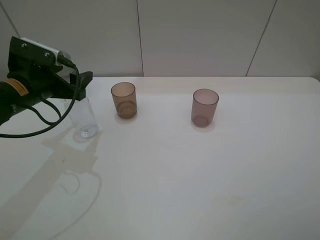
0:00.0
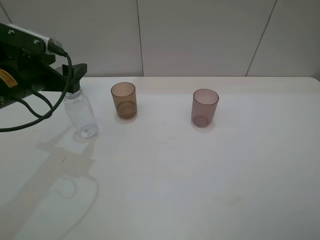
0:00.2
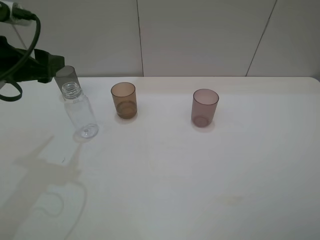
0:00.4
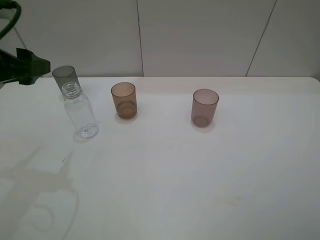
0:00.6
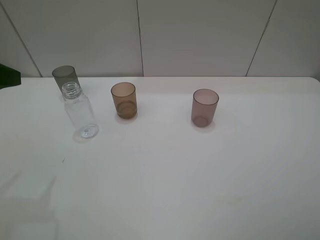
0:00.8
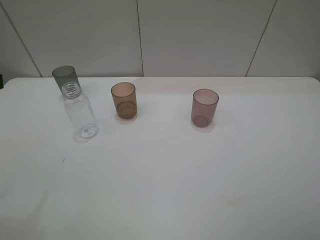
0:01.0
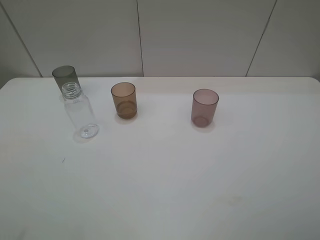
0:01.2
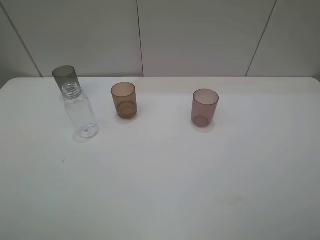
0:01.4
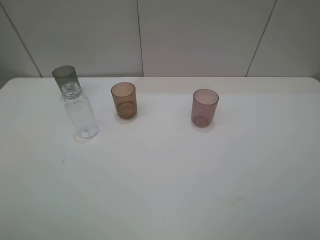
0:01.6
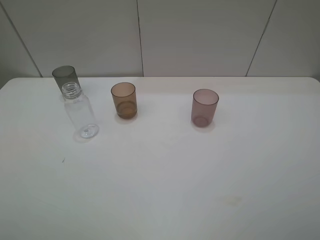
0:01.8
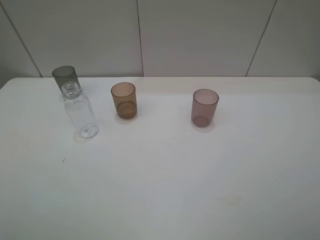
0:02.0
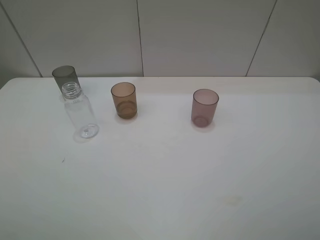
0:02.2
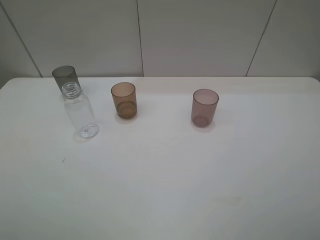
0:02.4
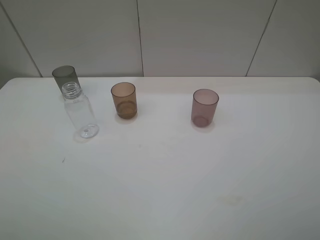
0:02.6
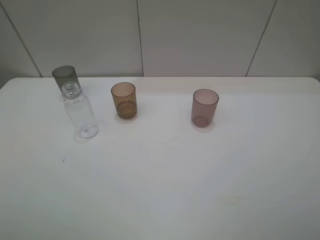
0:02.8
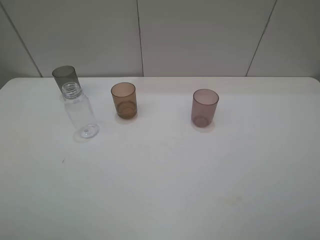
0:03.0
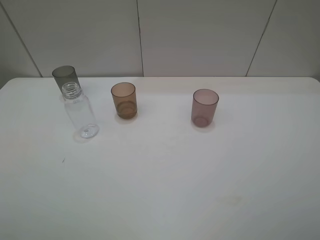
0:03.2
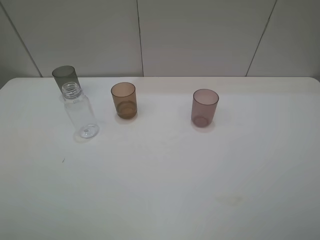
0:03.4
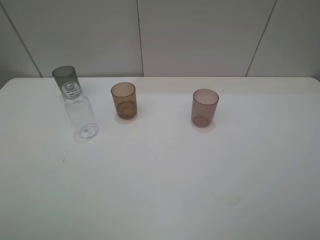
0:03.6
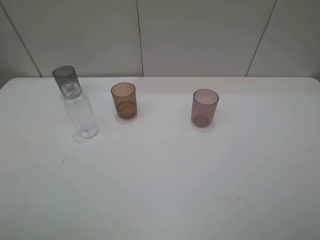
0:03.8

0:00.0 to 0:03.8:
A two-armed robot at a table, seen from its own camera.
Task of the whole recording: pick up the bottle filled with water and pour water into the middle cup of the three cups.
0:00.0 to 0:01.2: The left gripper shifts some 25 cm backward and upward.

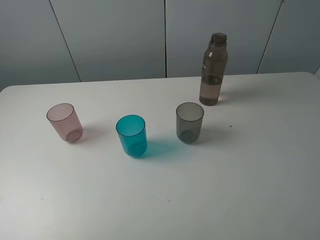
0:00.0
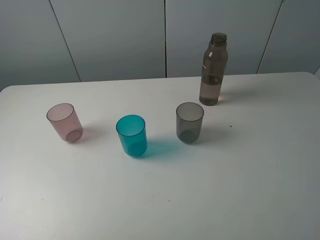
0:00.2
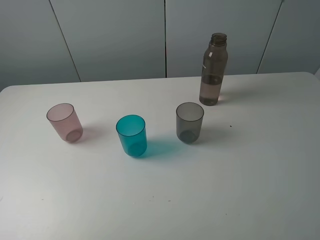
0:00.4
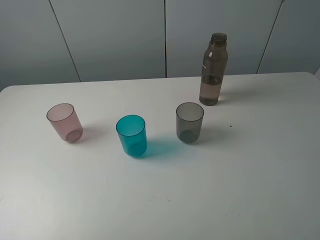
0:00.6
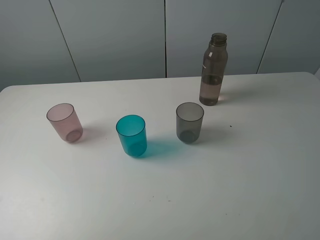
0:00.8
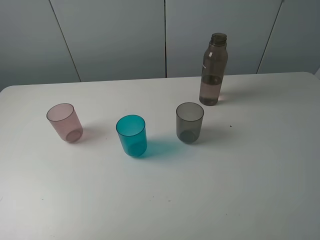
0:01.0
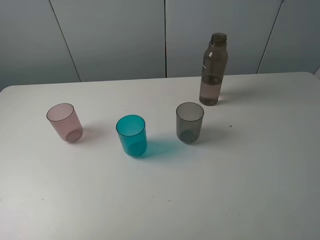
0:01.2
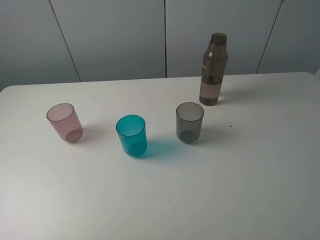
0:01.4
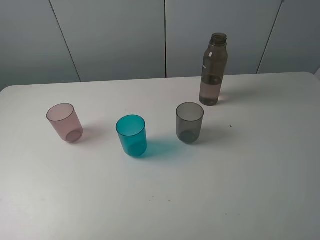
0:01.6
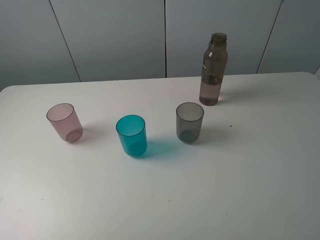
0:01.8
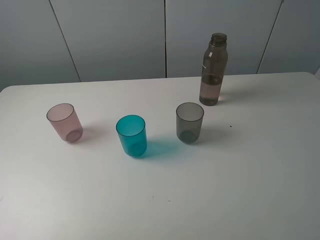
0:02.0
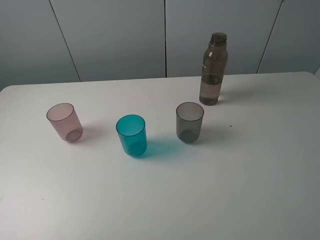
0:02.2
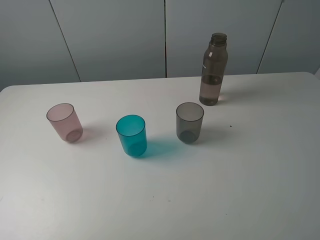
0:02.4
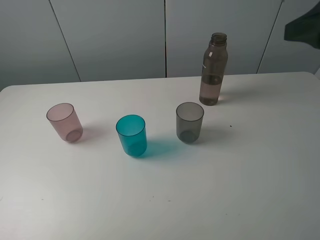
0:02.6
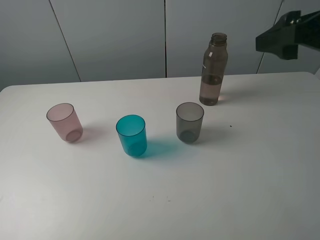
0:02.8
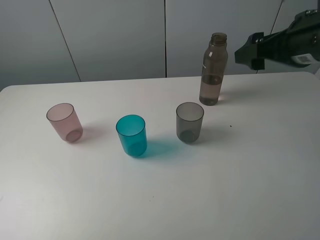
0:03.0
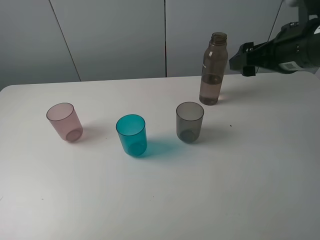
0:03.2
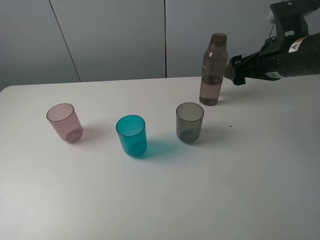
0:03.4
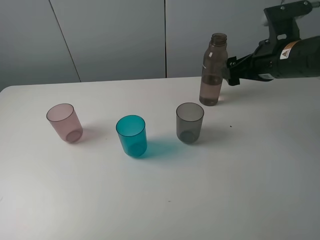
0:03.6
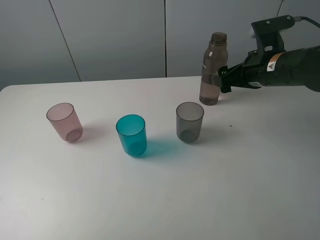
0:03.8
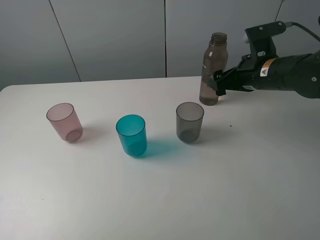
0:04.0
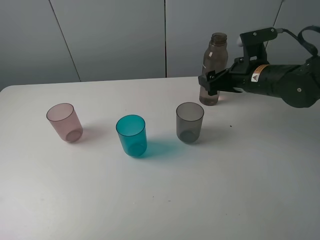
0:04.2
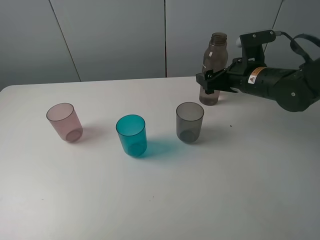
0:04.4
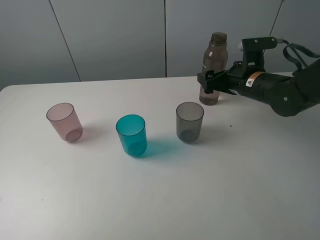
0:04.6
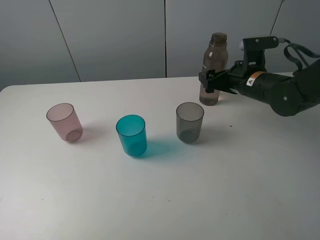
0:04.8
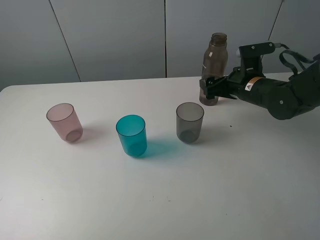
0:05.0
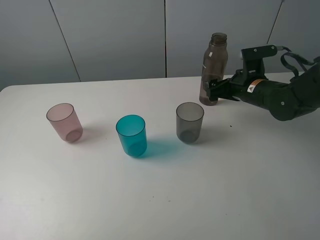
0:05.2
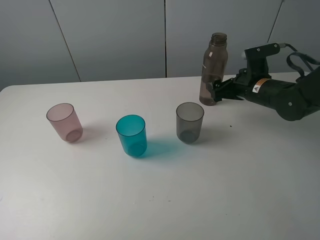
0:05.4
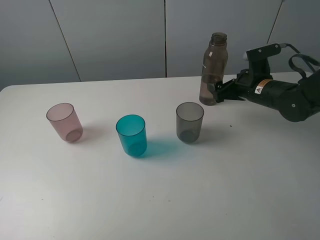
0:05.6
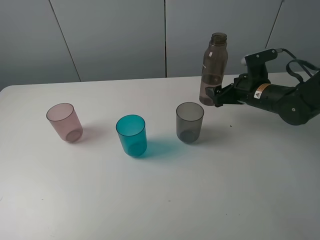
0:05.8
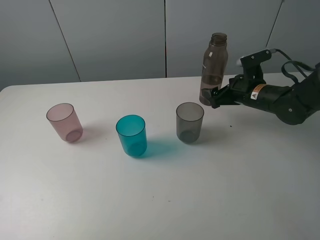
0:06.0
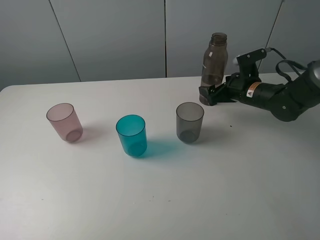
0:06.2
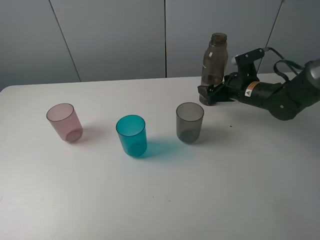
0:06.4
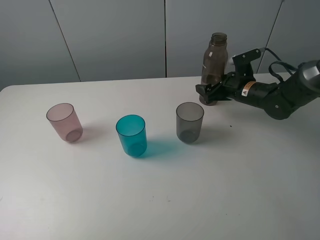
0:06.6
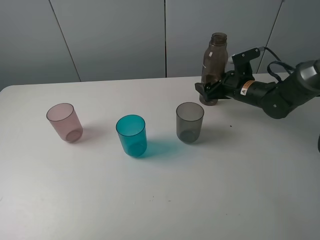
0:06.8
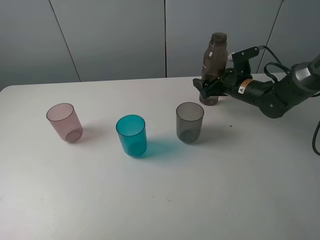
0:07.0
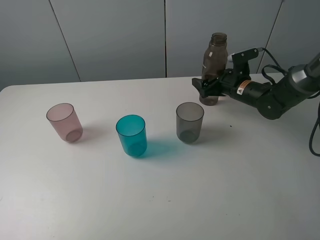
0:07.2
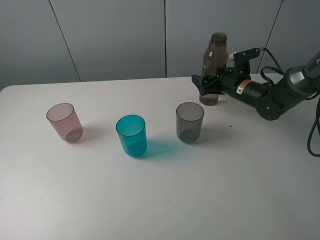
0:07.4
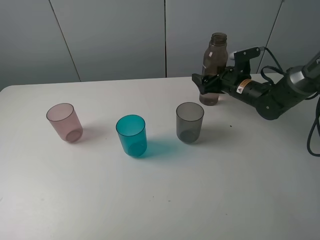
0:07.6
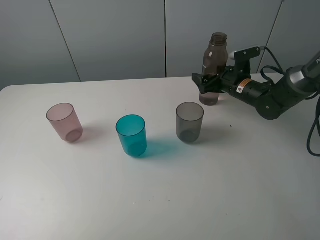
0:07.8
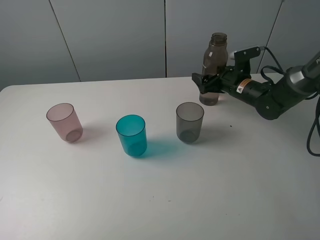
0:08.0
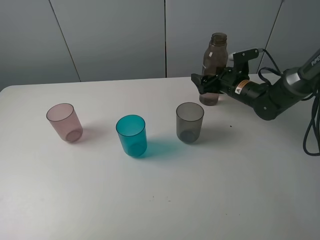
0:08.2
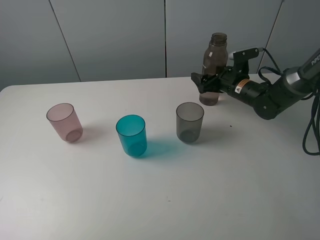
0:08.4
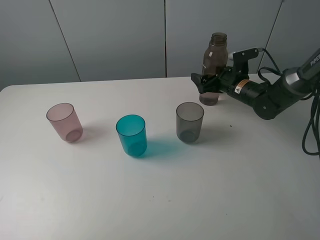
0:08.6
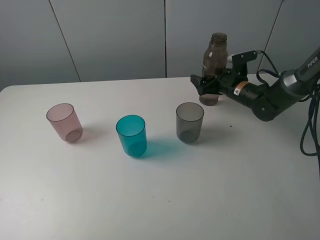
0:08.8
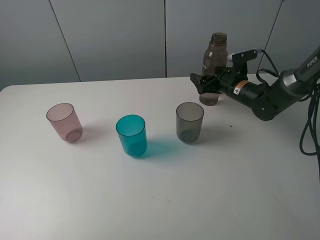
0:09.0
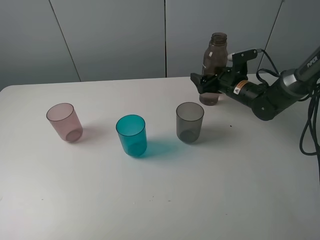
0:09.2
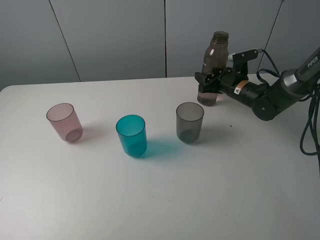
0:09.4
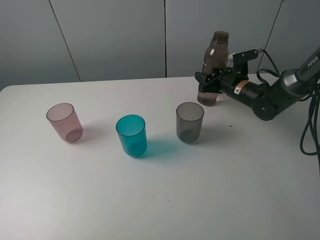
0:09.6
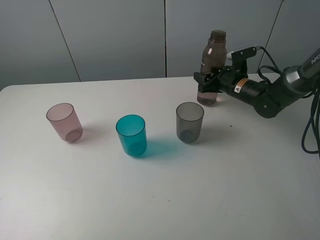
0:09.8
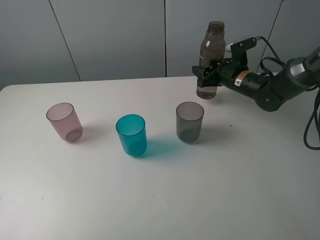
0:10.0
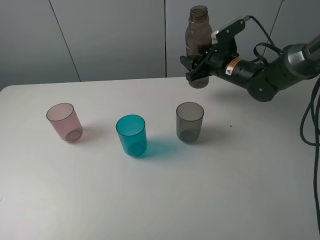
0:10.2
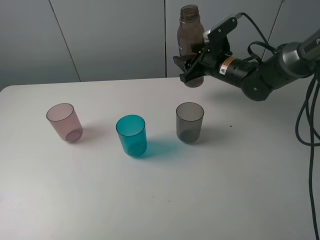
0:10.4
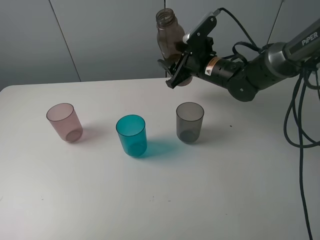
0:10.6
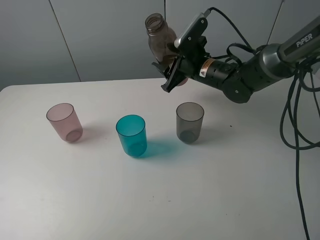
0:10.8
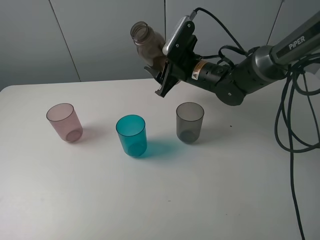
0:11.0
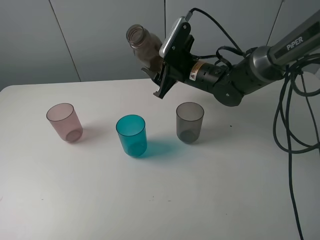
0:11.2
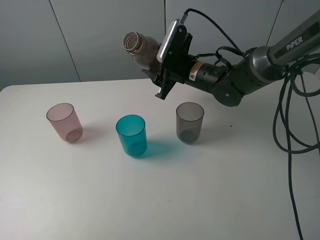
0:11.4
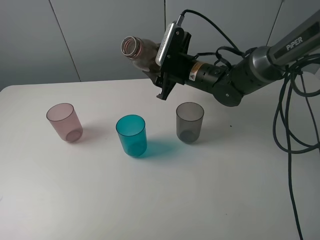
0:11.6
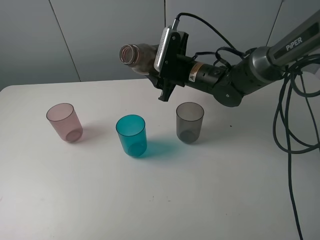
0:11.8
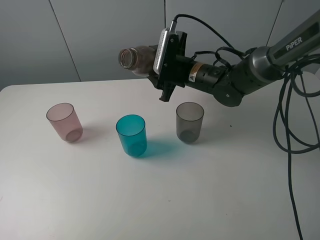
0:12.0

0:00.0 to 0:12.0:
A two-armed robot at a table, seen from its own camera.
Task of the whole recording: pick up the bottle filled with water and pour water into the middle cup of the three cups.
Step, 0:00.0 to 0:09.6: Grasp the brown bottle with the right gripper.
0:00.0 to 0:01.6: Both grippers stay about where they are.
0:01.6 to 0:03.0: The right gripper shifts about 25 cm forward.
0:03.0 to 0:04.4: The right gripper heads downward and forward, covering about 15 cm.
0:04.4 to 0:06.0: The right gripper travels downward by about 5 cm.
0:06.0 to 0:07.6: The right gripper heads forward, covering about 5 cm.
0:07.6 to 0:09.0: There are only small adjustments of the grippers.
0:09.0 to 0:10.4: The right gripper is displaced upward and to the left by roughly 10 cm, and closes up.
0:10.4 to 0:12.0: The right gripper heads to the left, covering some 5 cm.

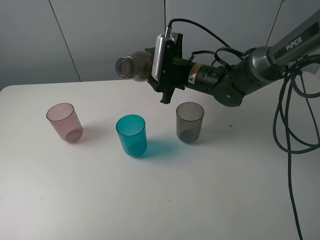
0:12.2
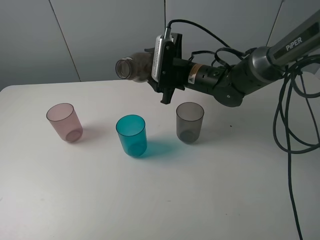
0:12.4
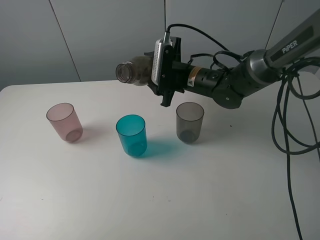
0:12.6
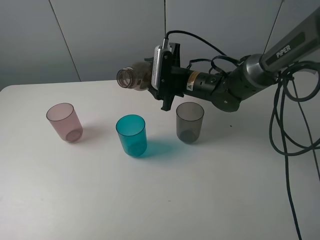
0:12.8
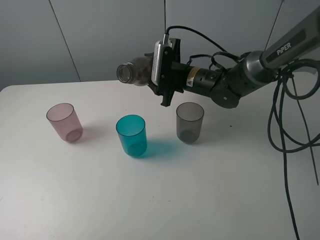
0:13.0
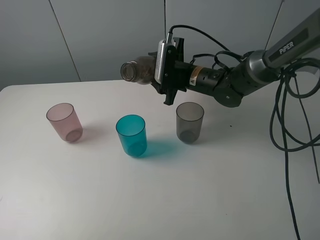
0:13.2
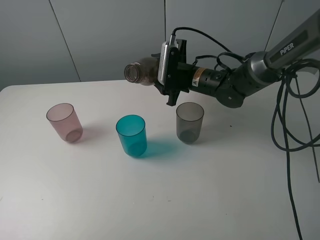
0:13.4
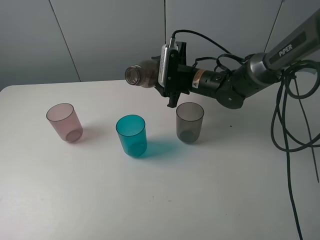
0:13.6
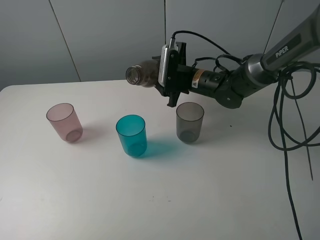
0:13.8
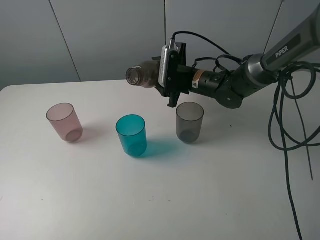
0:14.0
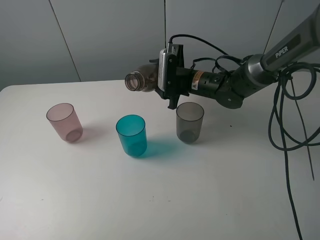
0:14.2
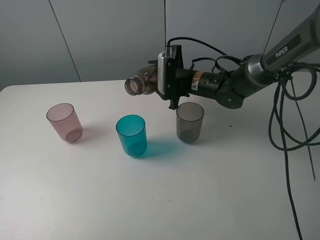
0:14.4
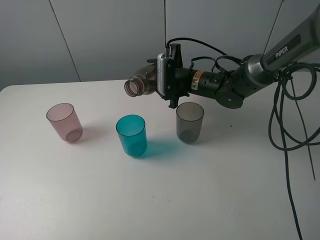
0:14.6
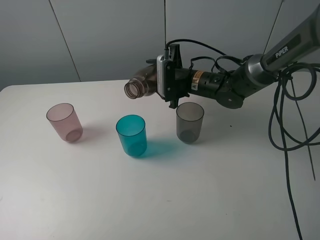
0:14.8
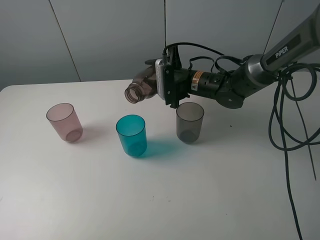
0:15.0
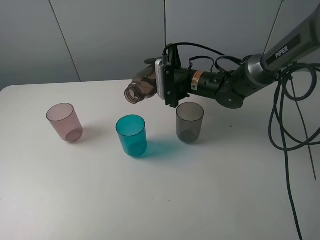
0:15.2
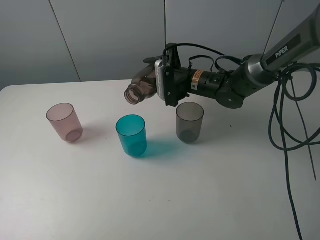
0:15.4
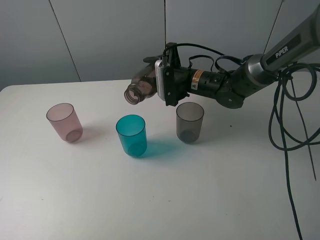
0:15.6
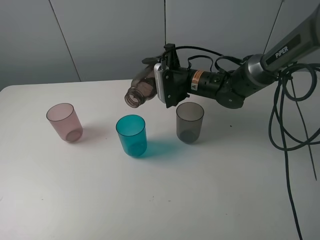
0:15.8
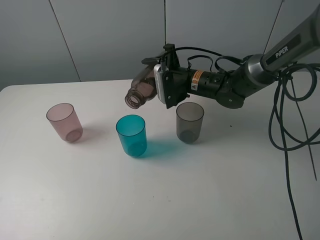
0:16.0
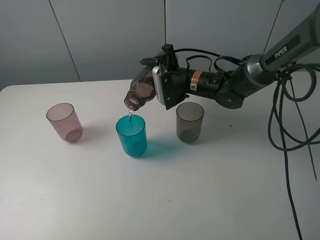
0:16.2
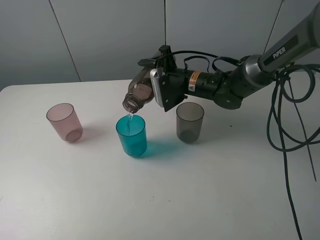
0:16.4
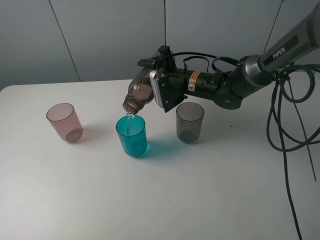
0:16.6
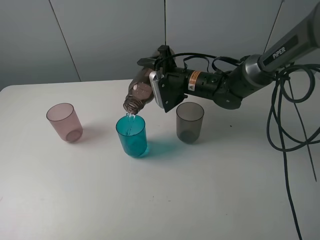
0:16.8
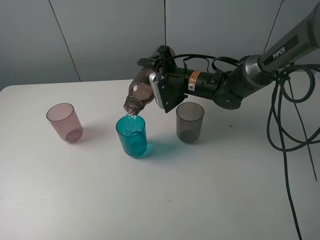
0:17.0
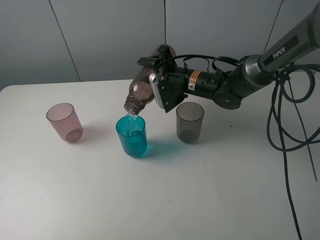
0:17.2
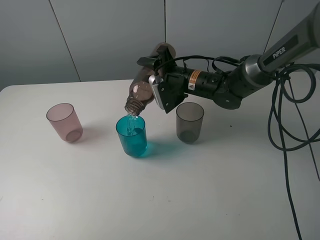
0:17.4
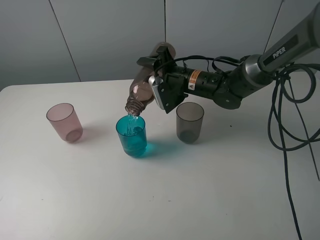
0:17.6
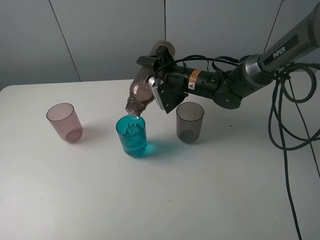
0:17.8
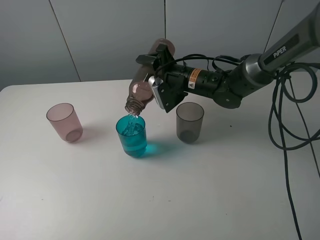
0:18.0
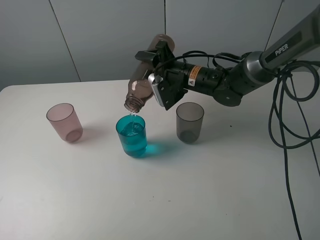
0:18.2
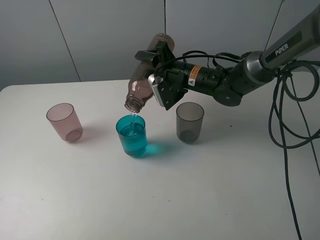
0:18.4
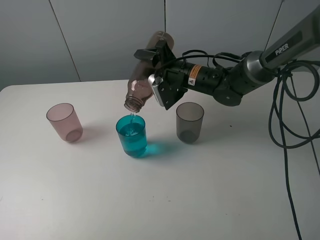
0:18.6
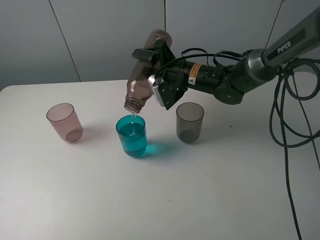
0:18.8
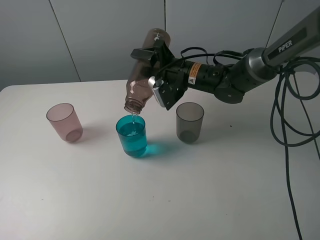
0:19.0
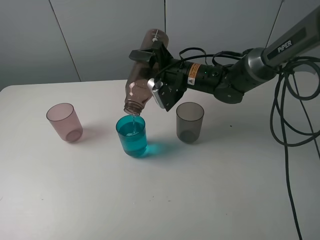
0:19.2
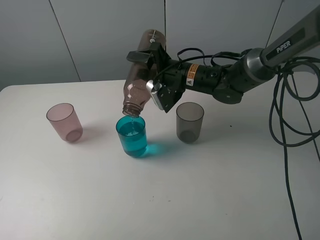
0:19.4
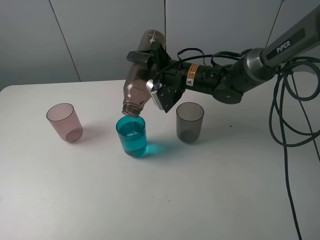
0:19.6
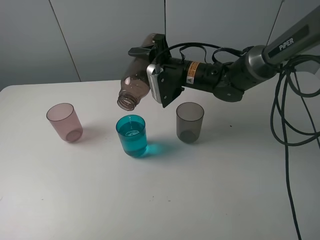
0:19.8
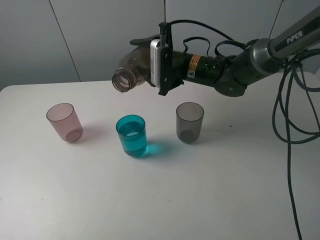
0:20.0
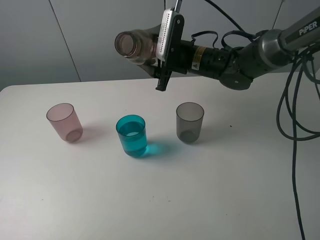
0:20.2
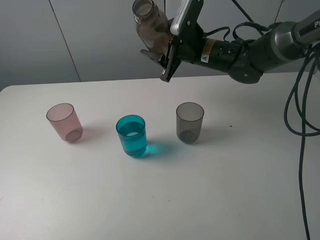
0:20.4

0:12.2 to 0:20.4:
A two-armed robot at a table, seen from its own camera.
Task of the whole recording: pick up the bottle filled with water and pour water into the middle cup of the three cups.
Step, 0:12.2 to 0:15.2: Pour water from transparent bottle to blue cup with the right gripper.
0:12.2 to 0:13.8: The grippers move only a little.
0:13.8 to 0:15.4: The grippers make only small movements.
0:15.4 to 0:17.2: The grippers stay close to where they were, moving slightly.
0:17.2 to 0:18.8: The grippers move only a little.
0:18.8 to 0:20.4: The right gripper goes approximately 5 cm upward.
